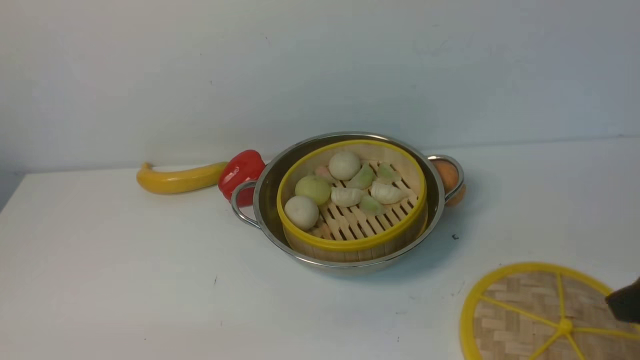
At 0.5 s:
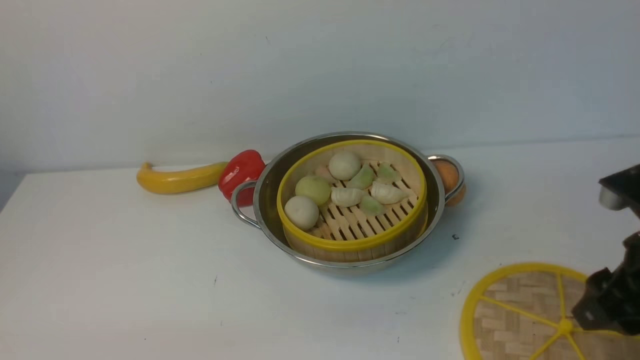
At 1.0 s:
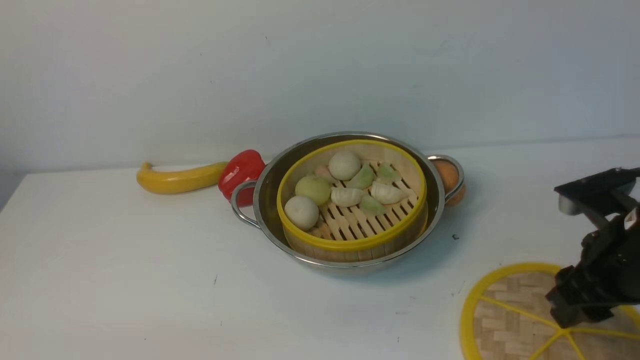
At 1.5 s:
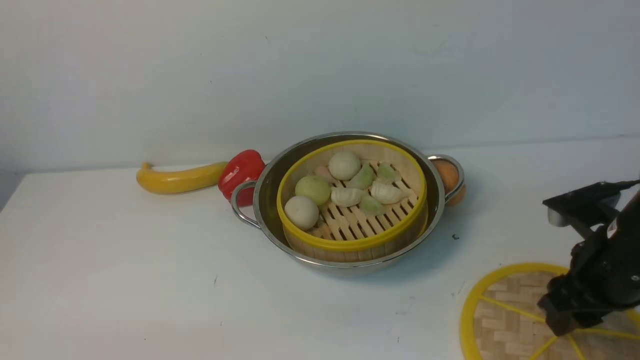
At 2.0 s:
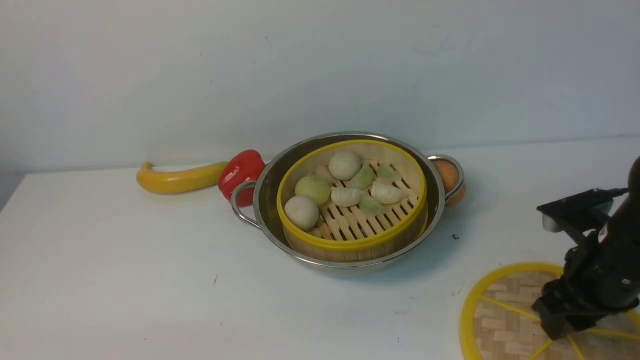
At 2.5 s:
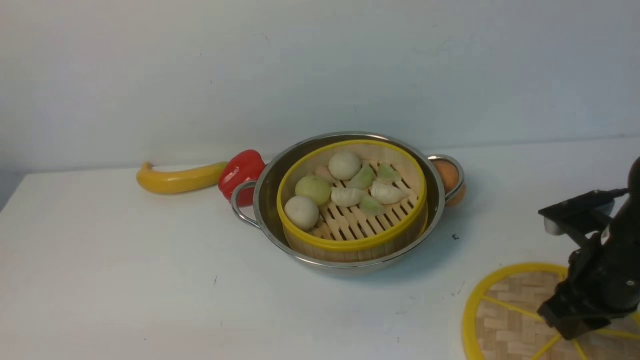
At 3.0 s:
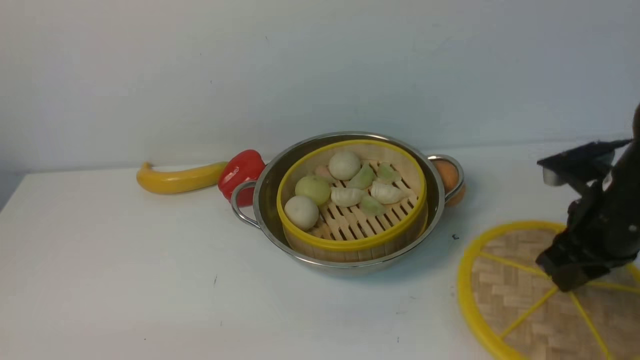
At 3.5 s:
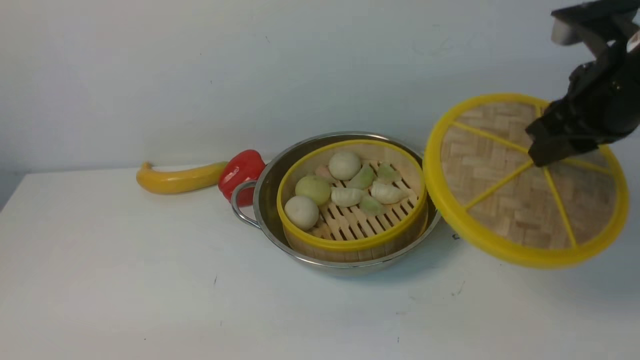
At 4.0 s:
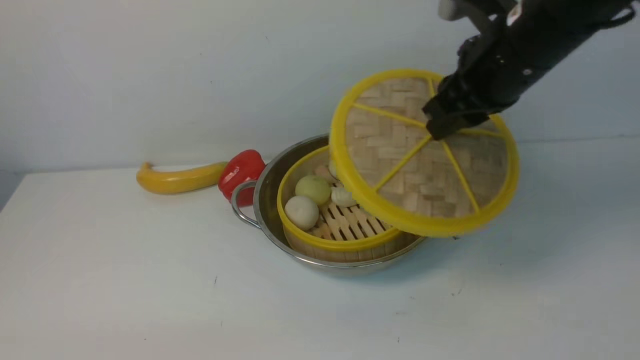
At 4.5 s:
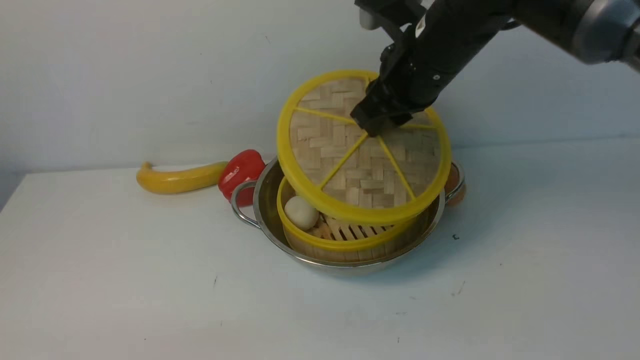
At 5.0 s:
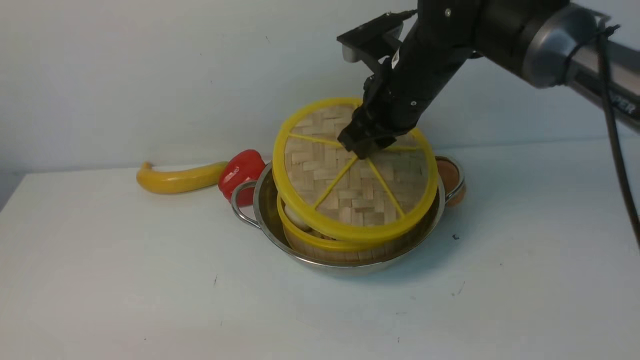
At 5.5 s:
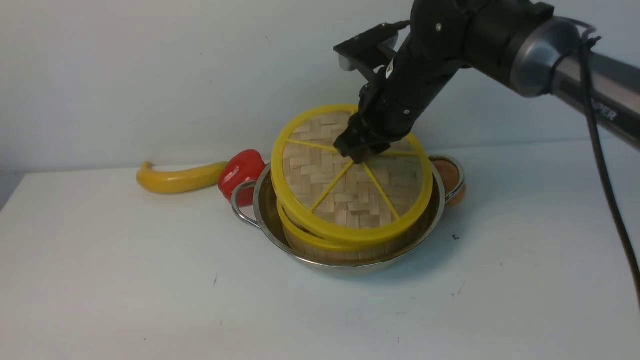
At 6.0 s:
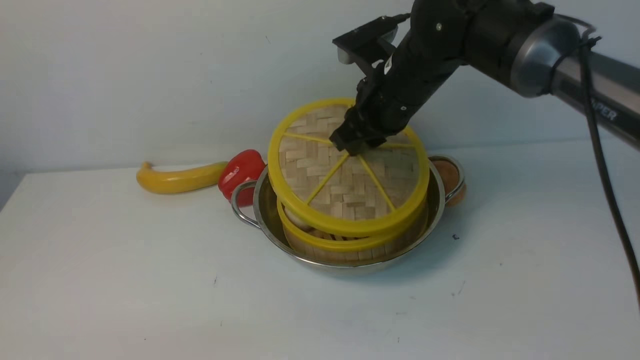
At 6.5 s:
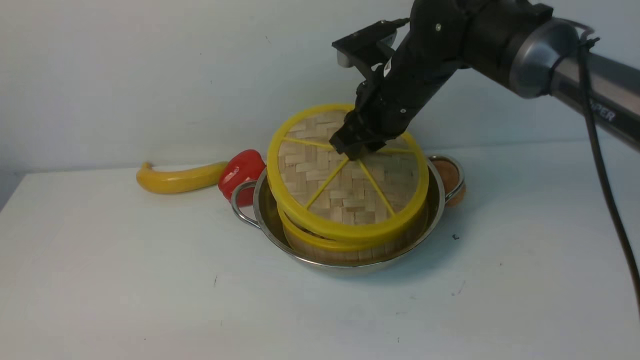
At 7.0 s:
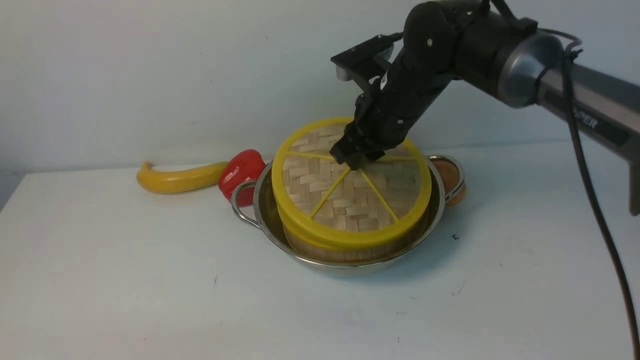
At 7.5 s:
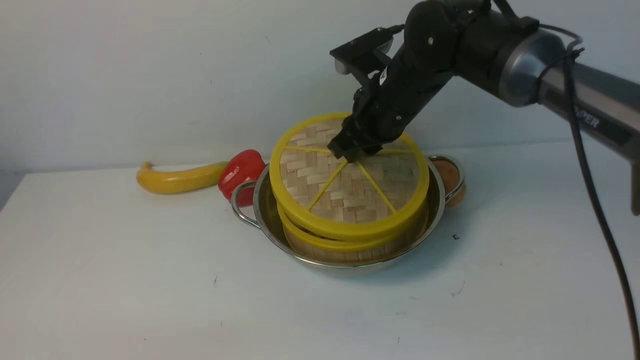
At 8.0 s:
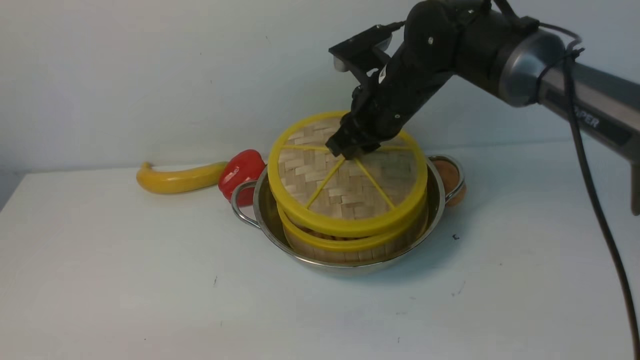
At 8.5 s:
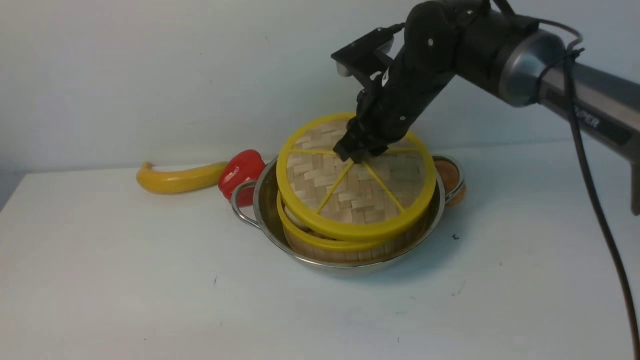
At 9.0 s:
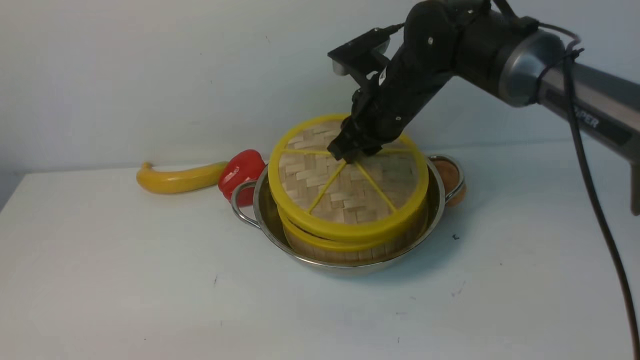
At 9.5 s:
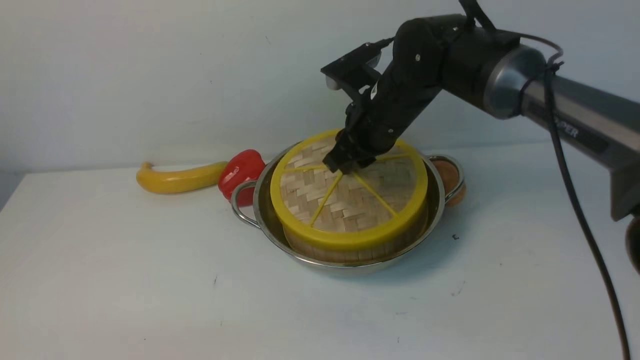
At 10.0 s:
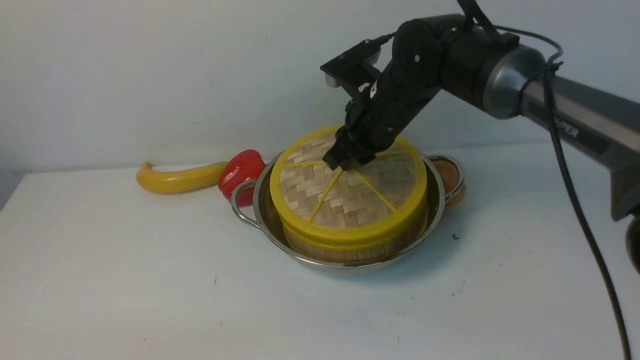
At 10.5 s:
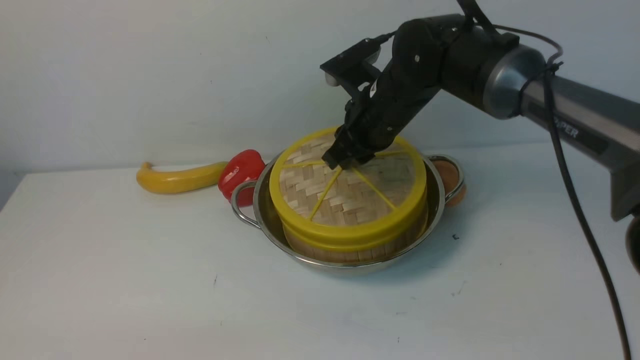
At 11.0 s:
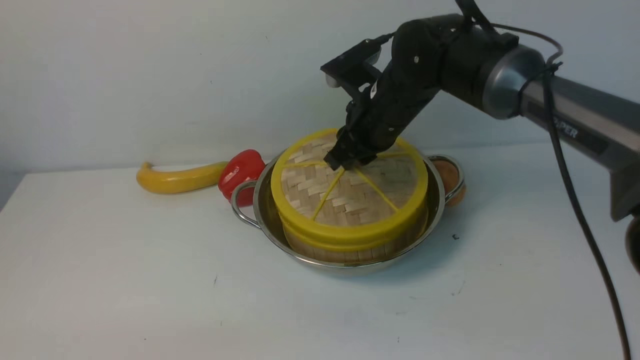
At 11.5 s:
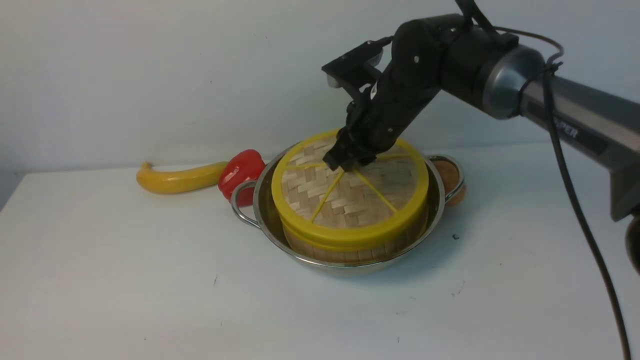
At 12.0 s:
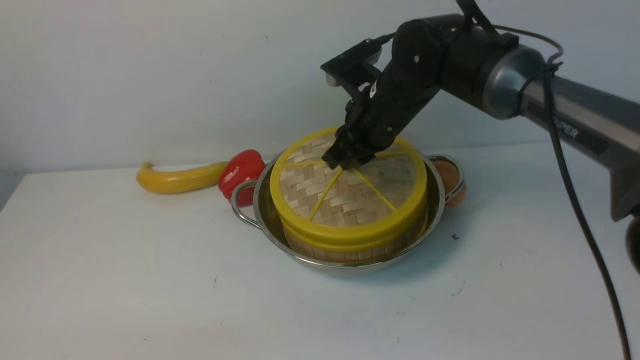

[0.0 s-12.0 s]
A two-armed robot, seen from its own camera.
Task of the whole recording: place the steamer in the pot on the white table, and put the lid on the steamer.
Step, 0.0 to 3.0 s: use the right arm to lift the lid of the steamer.
0.0 to 2.0 s: The right gripper travels downward and forward by about 15 cm.
2.0 to 4.0 s: The right gripper heads upward, to the left and forward, covering approximately 20 cm, and closes up.
4.0 to 6.0 s: The right gripper moves to the left, downward and forward, about 15 cm.
6.0 to 10.0 s: The grippers stay close to where they were, moving slightly.
10.0 to 12.0 s: Both grippers stay about where they are.

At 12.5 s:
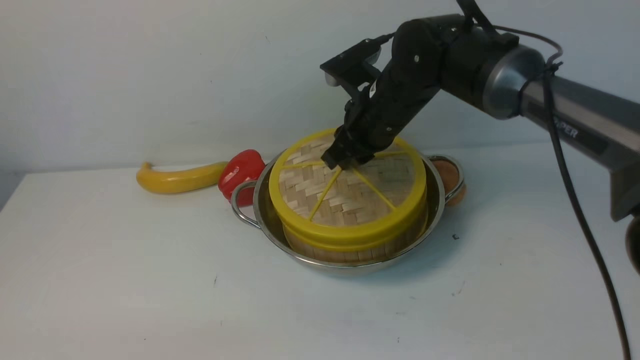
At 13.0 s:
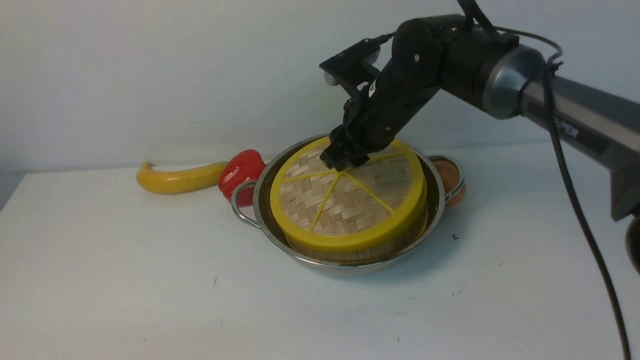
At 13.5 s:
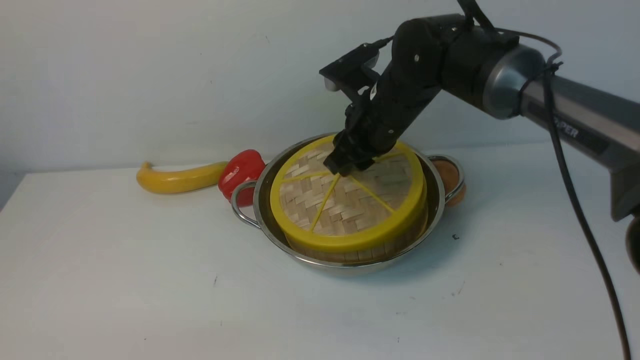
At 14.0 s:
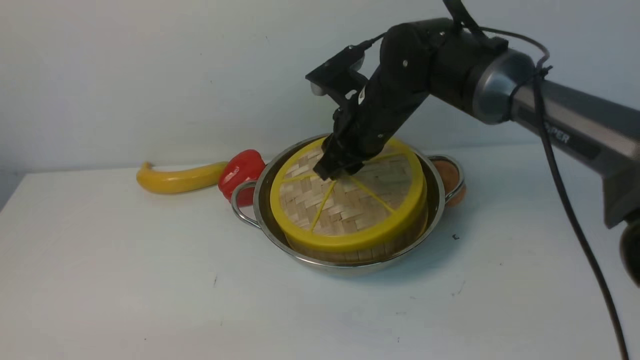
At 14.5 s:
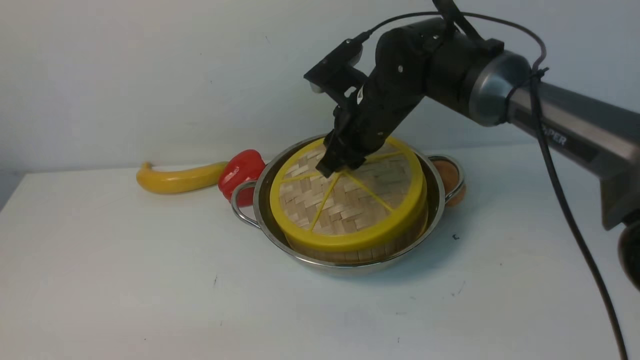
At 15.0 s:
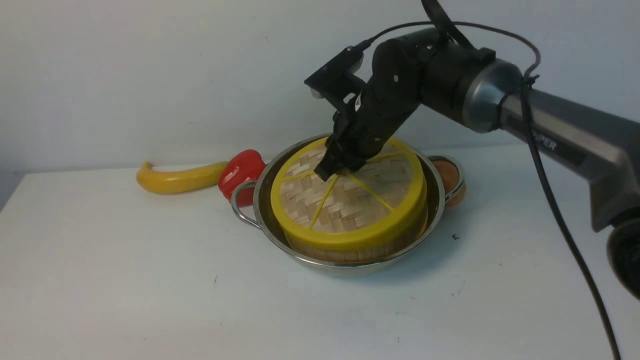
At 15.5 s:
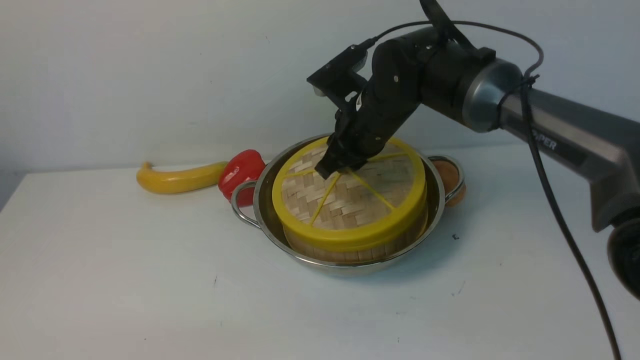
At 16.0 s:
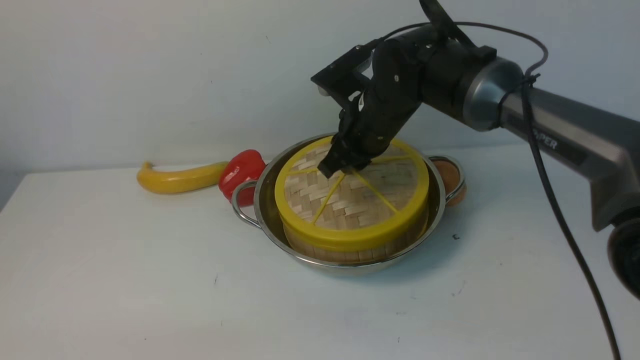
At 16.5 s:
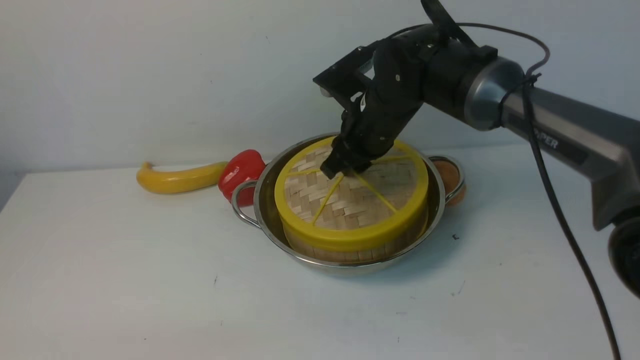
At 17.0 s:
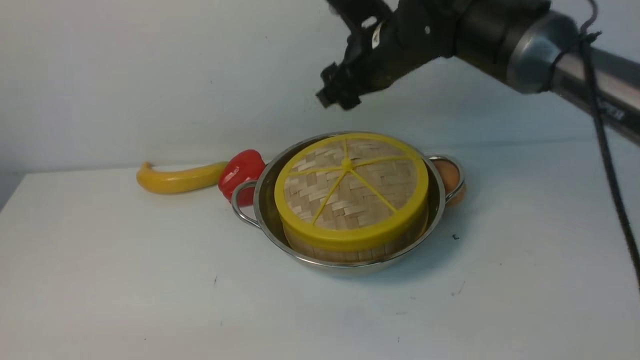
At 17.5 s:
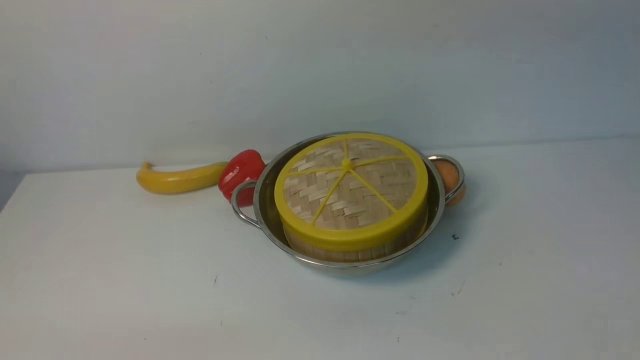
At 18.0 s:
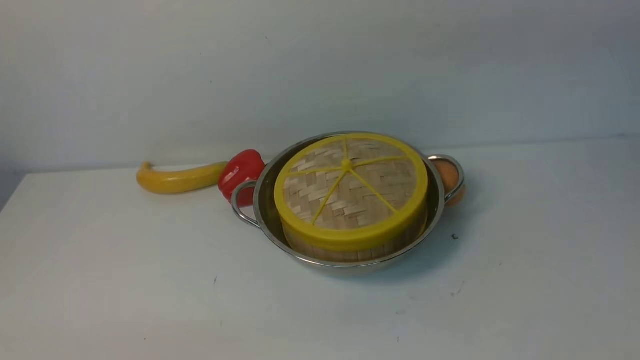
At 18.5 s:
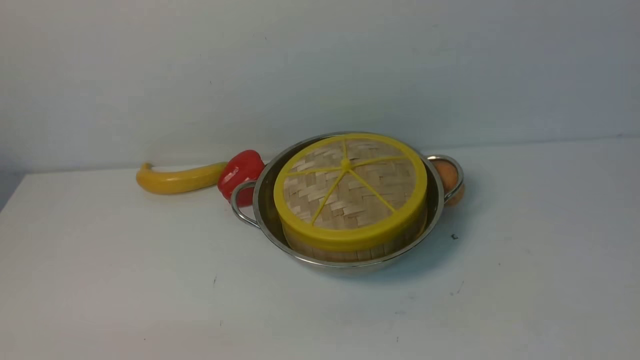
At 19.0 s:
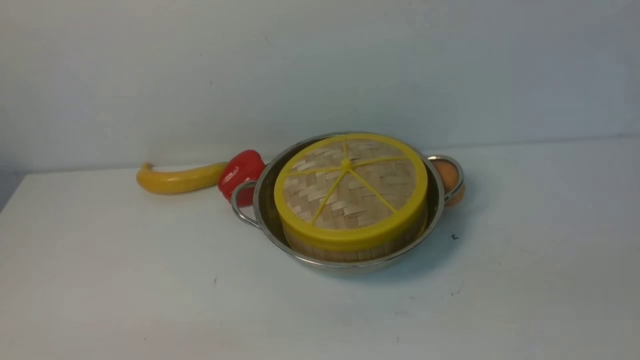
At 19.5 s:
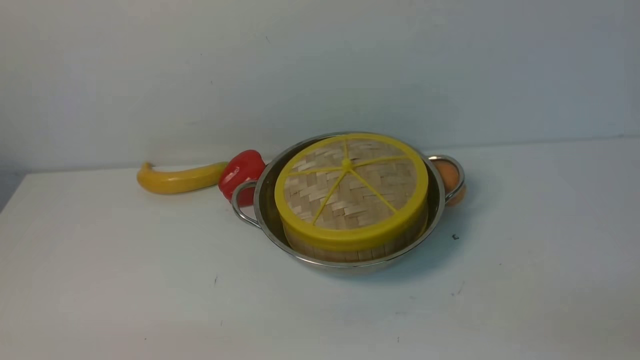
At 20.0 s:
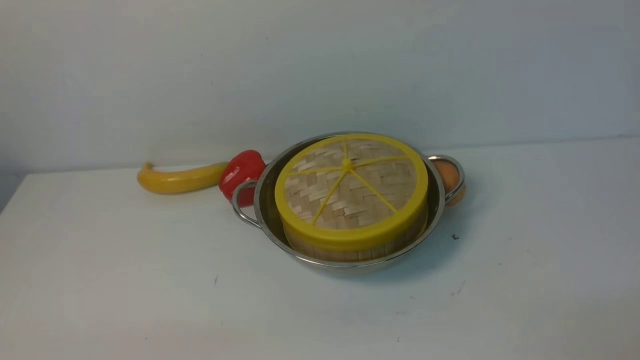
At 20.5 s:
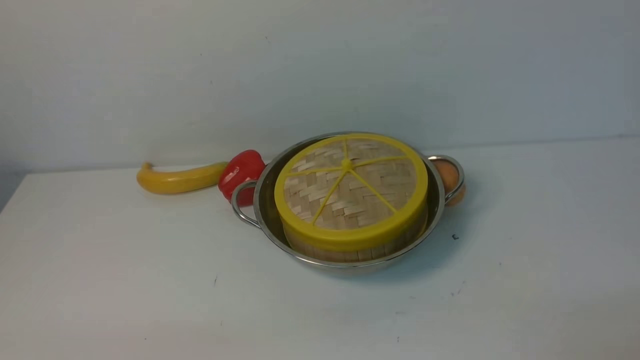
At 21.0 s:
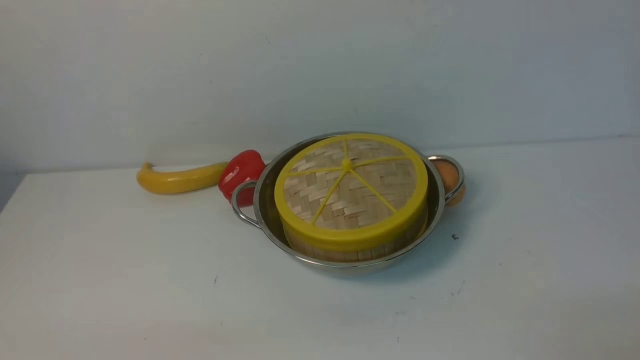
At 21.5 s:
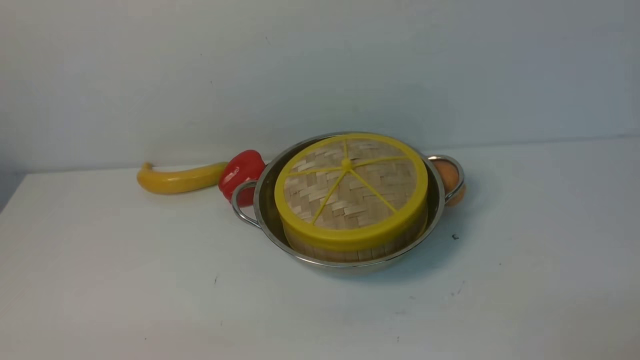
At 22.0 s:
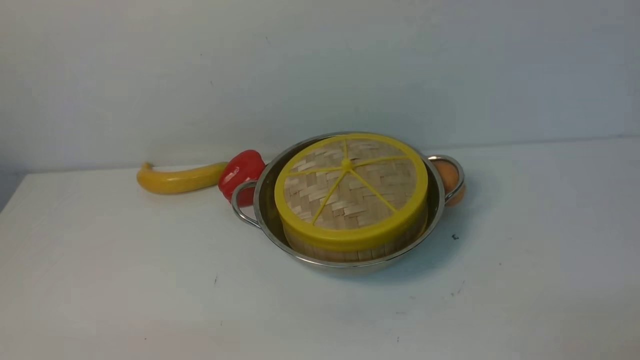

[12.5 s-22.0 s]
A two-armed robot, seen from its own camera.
Task of the whole recording: place the steamer in the pot on the white table, and put the lid on the steamer.
Step, 12.5 to 17.5 s: use the right arm to place the steamer lid on the steamer.
12.5 to 16.5 s: The grippers make only small movements.
16.5 to 18.0 s: The right gripper travels upward and backward by approximately 25 cm, and closes its fingers.
20.0 to 22.0 s: Both grippers stay put.
